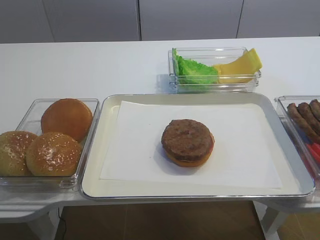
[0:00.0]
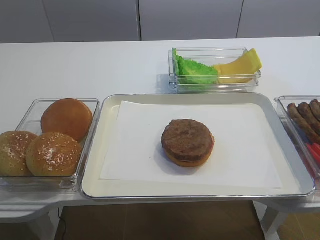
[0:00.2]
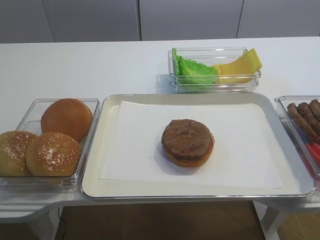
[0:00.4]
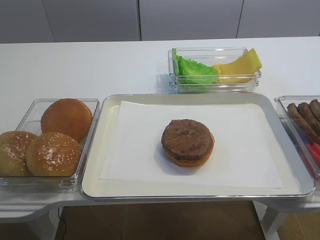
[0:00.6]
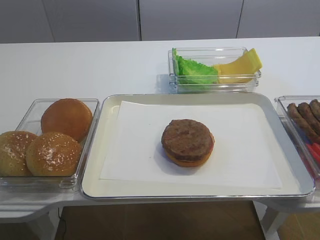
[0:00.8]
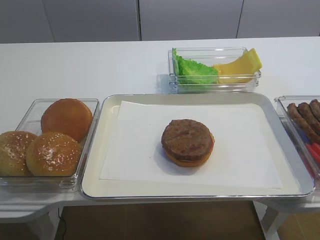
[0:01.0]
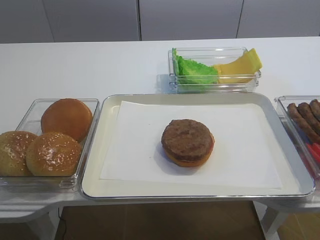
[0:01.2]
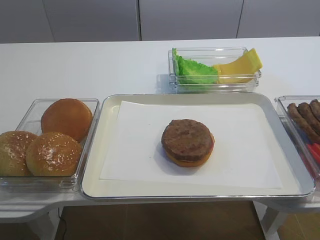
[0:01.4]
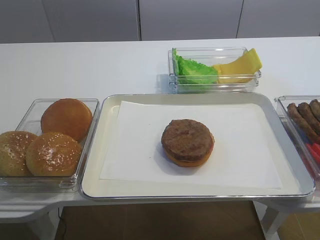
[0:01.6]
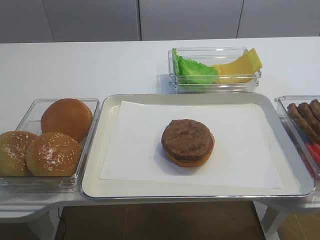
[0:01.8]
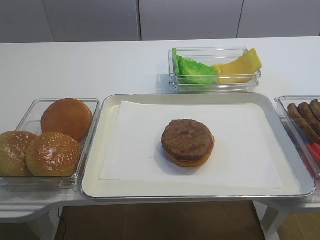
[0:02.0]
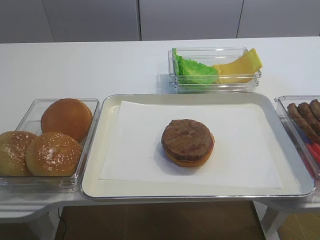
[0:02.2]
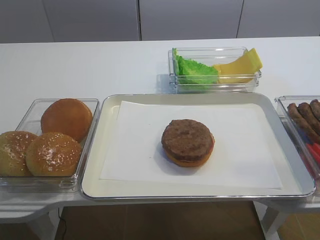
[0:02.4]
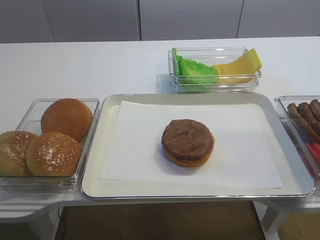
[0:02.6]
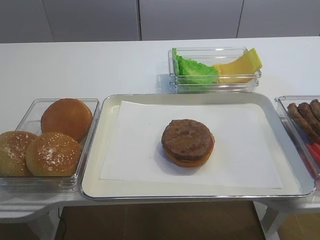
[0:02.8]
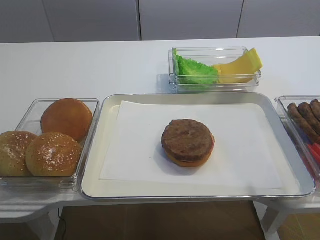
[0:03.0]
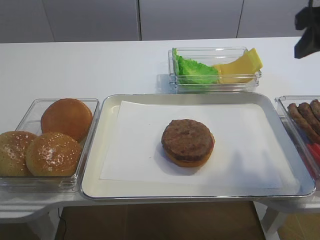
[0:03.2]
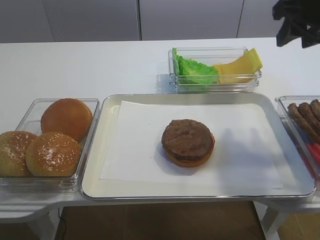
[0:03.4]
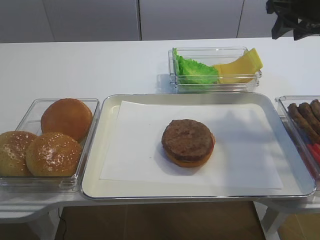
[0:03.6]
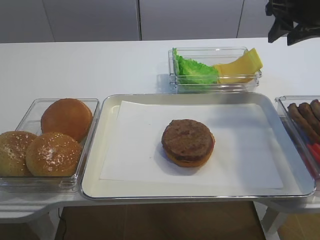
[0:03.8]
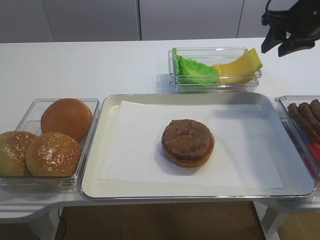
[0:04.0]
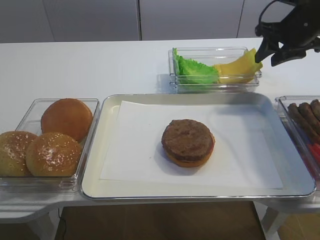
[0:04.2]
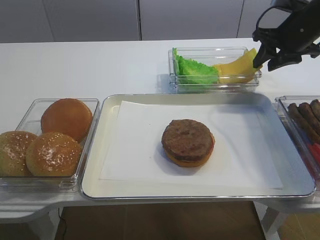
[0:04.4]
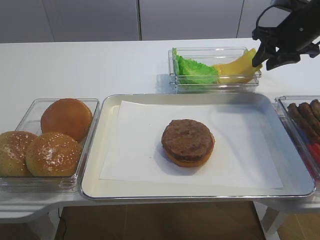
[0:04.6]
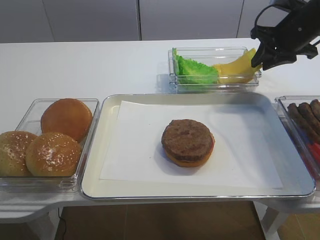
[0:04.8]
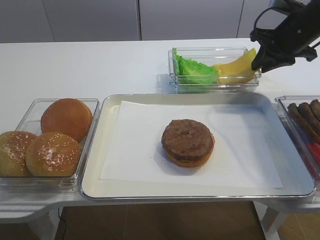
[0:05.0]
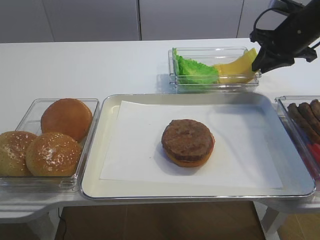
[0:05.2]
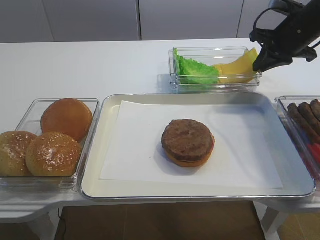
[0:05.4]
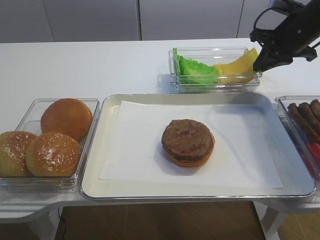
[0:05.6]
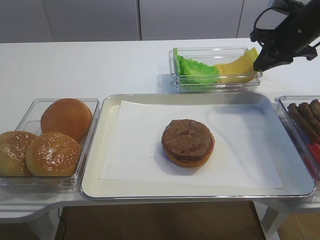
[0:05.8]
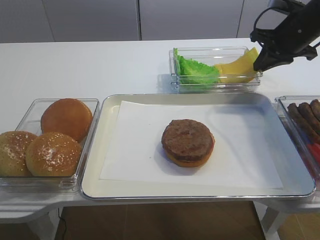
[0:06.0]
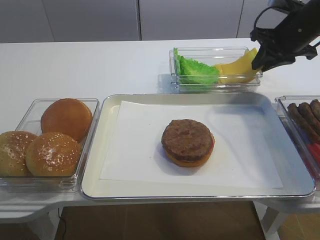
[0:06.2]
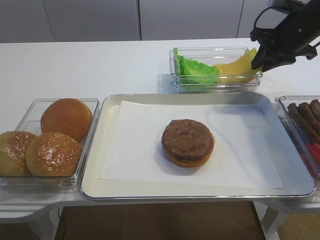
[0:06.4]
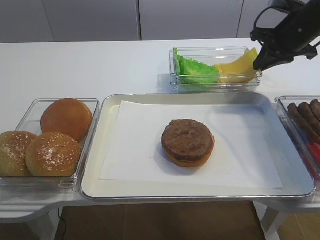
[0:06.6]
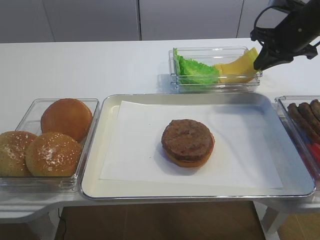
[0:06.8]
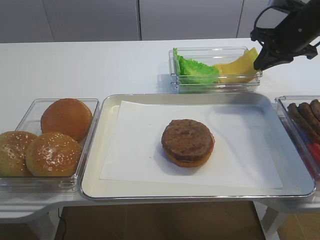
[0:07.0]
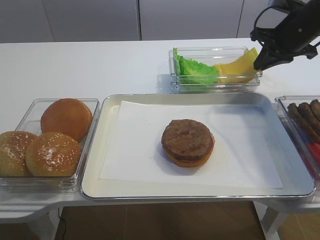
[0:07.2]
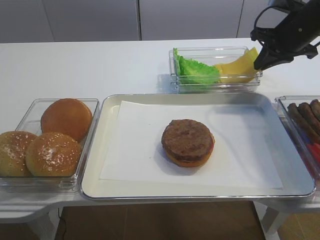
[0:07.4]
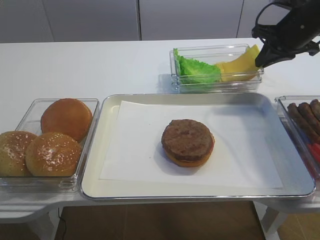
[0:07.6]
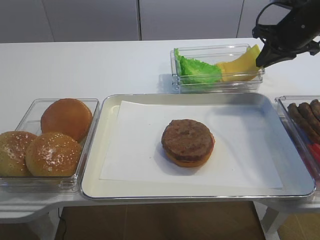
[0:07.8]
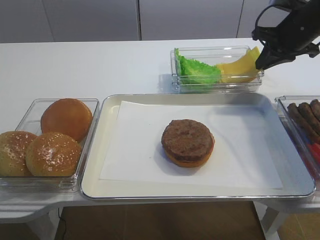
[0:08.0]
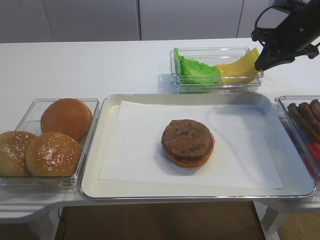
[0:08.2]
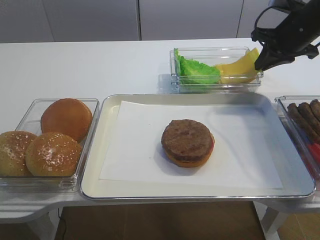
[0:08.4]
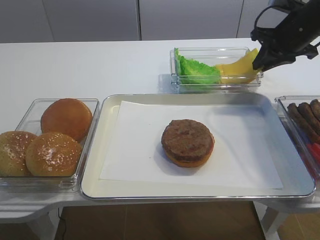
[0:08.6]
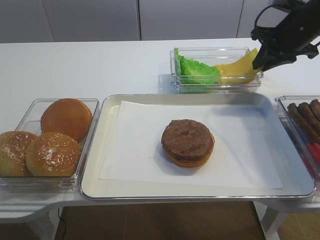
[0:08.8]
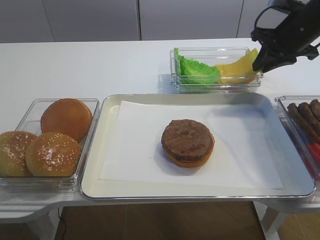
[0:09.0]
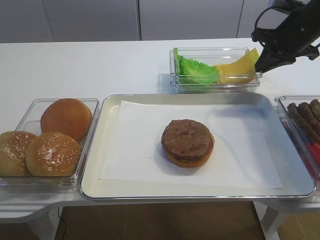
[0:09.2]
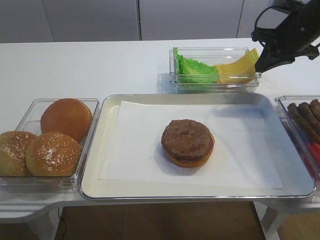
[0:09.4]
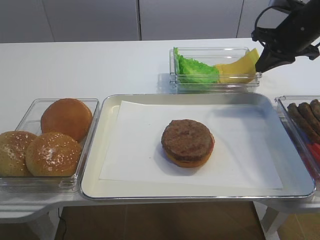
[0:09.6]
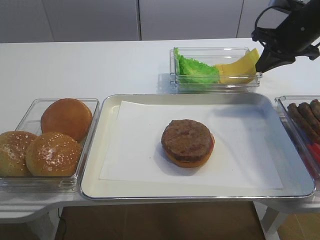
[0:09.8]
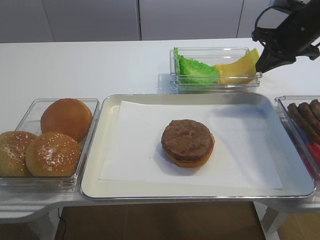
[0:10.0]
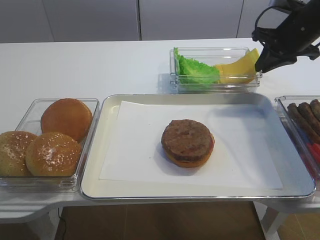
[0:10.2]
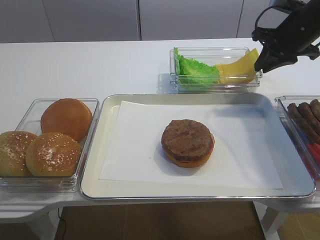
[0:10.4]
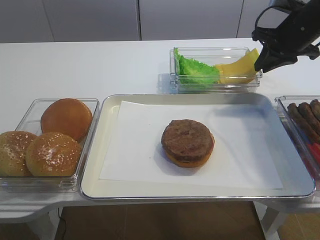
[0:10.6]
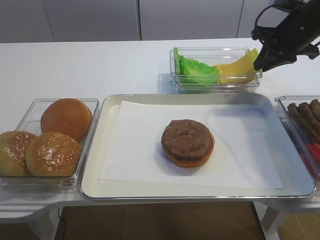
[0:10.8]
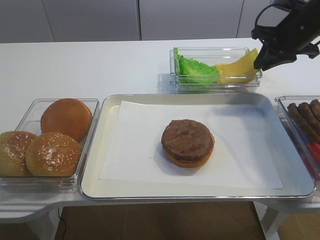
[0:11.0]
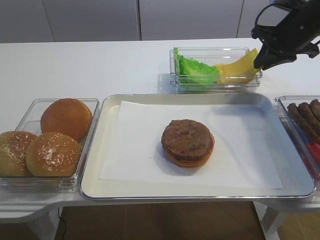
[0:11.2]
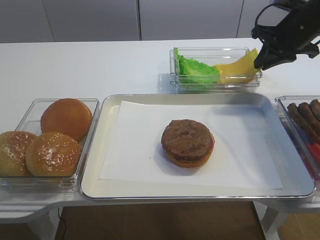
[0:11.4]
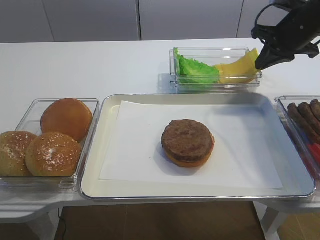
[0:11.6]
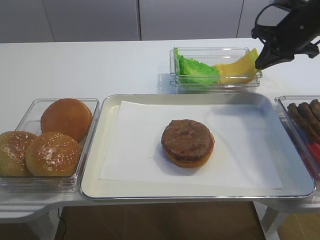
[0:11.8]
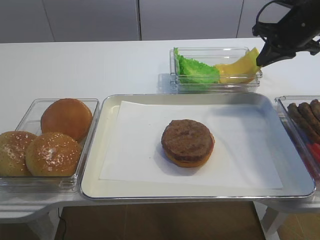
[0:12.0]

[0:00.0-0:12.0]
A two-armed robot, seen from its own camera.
0:01.6 to 0:03.0: The right gripper travels forward by some 20 cm.
0:03.0 to 0:04.4: The right gripper goes some 25 cm forward.
0:04.4 to 0:06.0: The right gripper closes up.
0:06.0 to 0:07.6: The right gripper opens and closes again.
0:07.6 to 0:12.0: The two grippers keep their place.

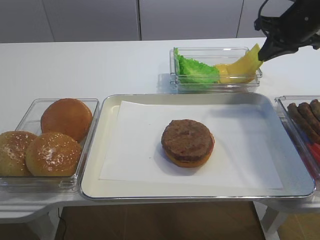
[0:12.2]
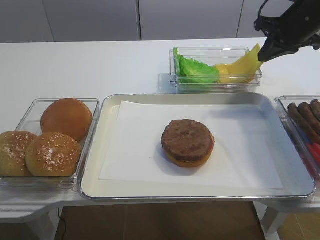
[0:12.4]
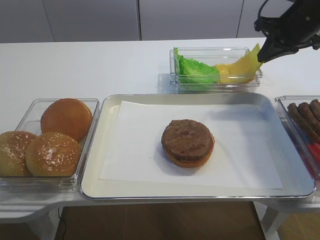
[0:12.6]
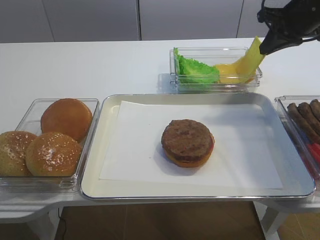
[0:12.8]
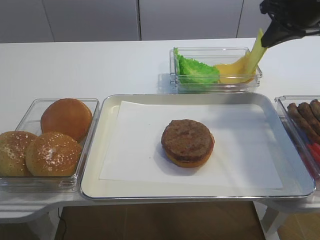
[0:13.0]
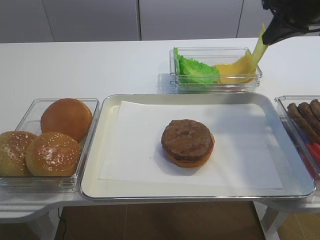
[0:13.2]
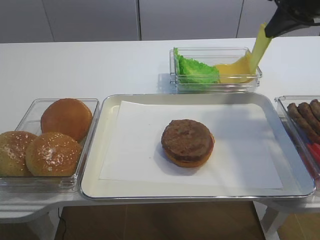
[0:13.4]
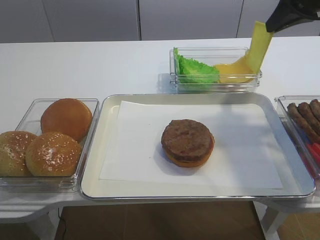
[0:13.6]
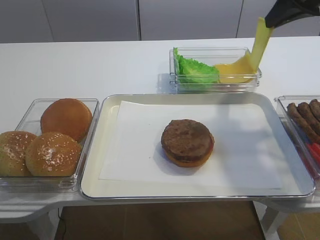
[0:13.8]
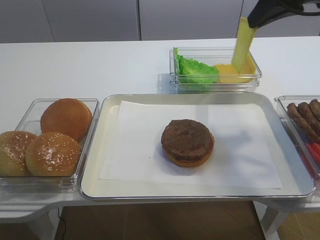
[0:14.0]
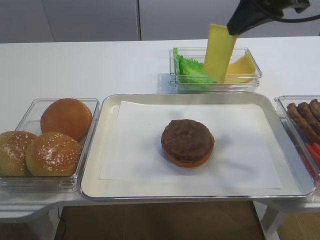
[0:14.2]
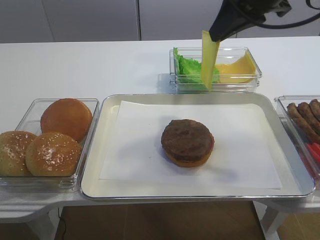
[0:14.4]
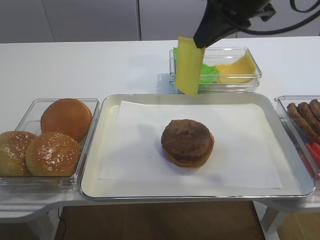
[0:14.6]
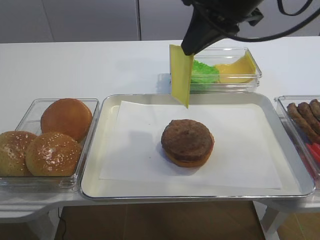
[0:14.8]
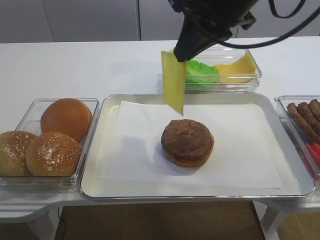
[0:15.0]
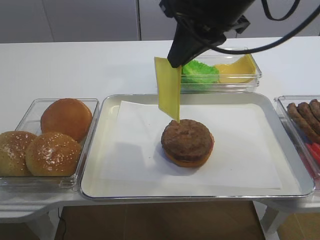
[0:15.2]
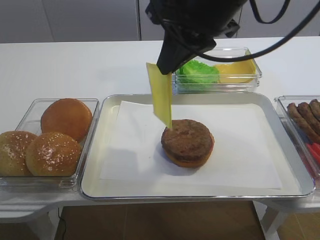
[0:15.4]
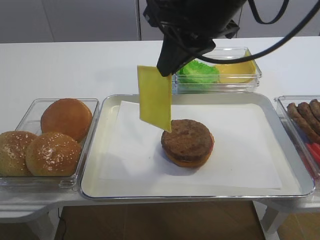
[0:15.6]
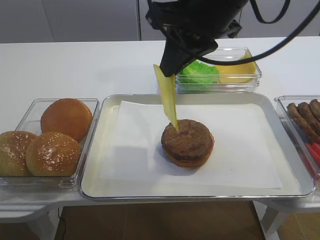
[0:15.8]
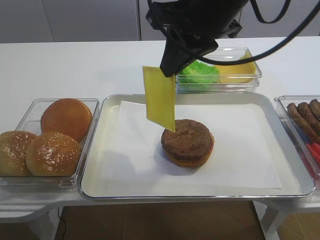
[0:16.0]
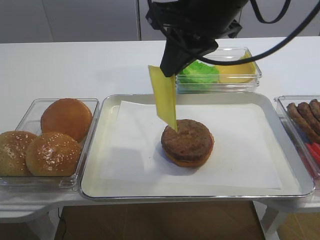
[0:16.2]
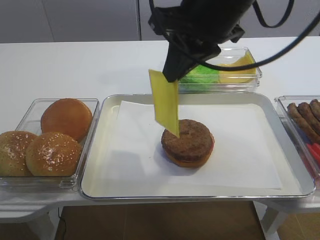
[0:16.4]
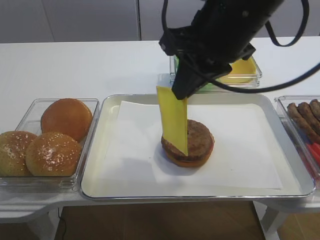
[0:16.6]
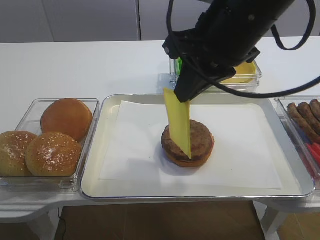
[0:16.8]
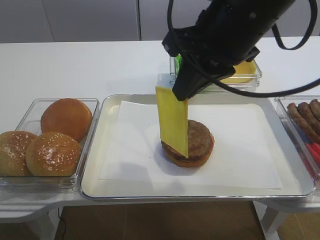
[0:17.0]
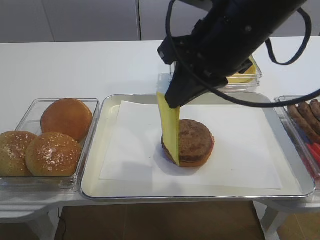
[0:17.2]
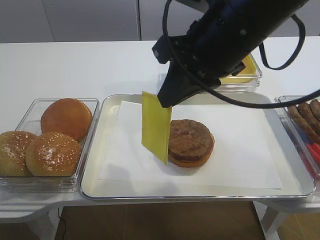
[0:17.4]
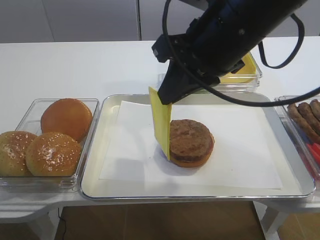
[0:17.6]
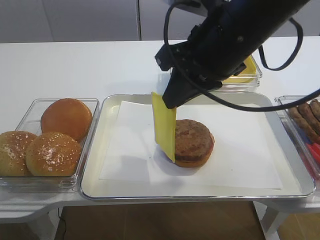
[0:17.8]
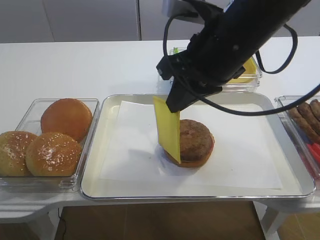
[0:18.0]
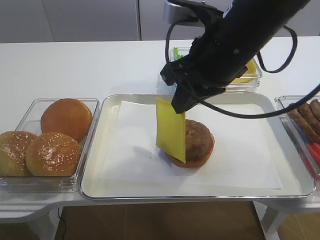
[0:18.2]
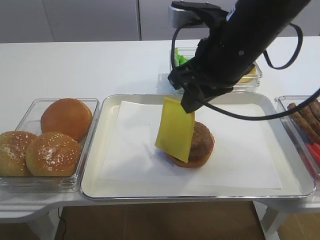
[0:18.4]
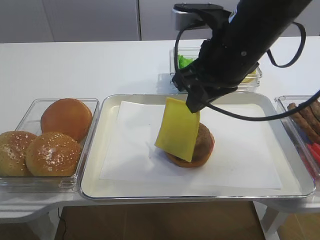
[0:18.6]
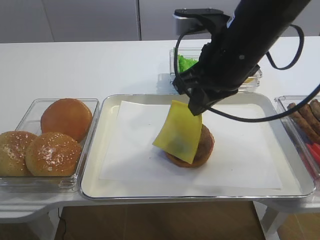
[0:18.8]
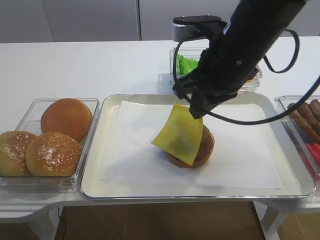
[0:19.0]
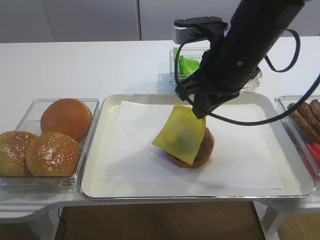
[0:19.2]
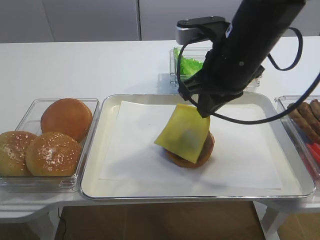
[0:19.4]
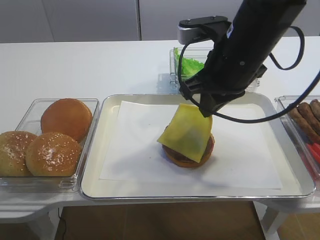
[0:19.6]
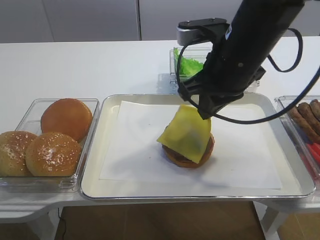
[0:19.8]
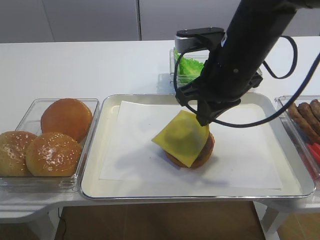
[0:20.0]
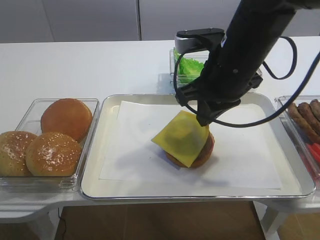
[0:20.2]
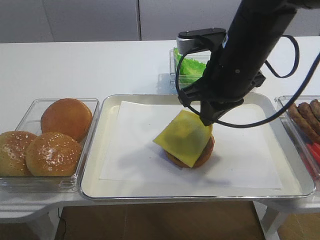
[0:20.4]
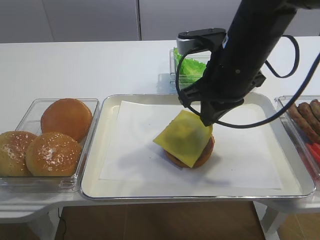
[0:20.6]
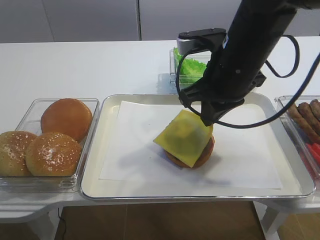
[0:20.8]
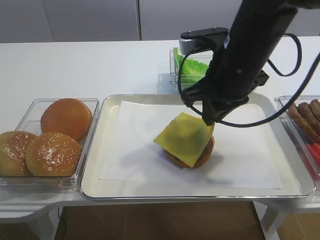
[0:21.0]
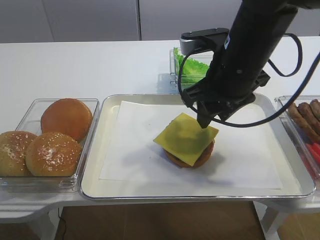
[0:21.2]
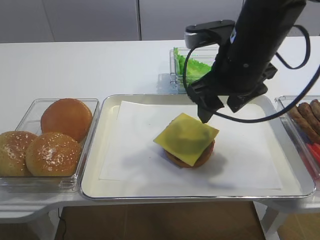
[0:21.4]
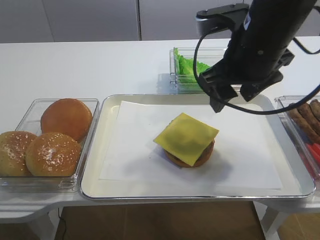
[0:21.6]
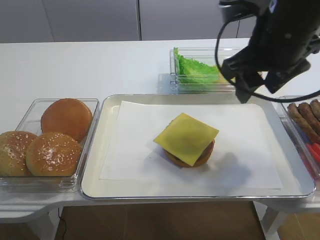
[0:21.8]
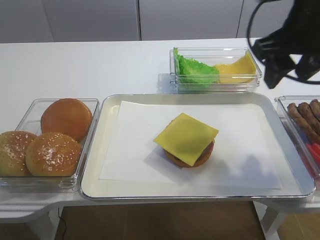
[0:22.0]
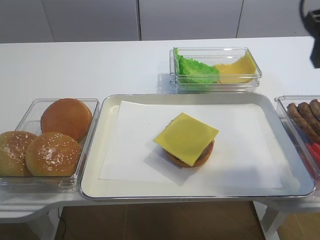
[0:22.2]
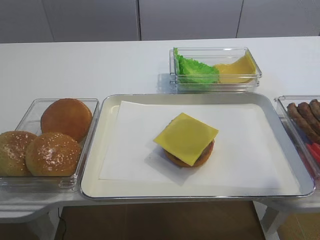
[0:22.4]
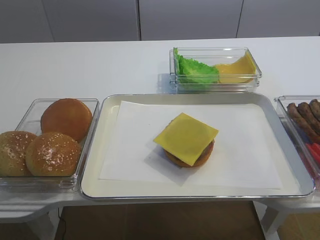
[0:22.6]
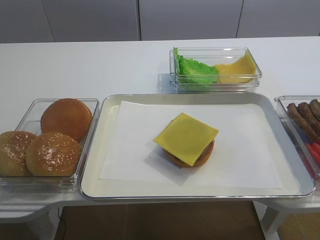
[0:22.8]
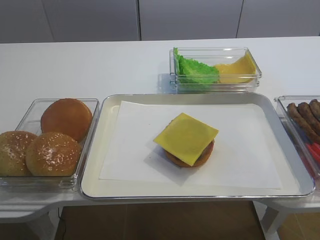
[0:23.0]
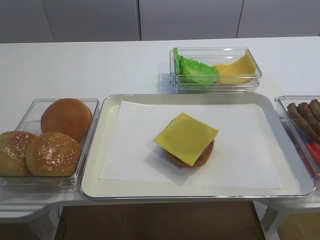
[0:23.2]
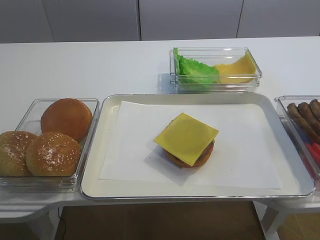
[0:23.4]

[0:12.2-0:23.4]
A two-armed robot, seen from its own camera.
Step, 0:14.0 to 0:21.4: Place the cheese slice on the cutlet with the right gripper.
0:12.2 to 0:13.8: The right gripper shifts approximately 10 cm upward and backward.
0:13.8 to 0:15.4: The right gripper heads to the left and backward, covering approximately 20 cm.
0:15.4 to 0:17.0: The grippers move only a little.
0:17.0 to 0:18.6: The grippers make only small movements.
0:18.6 to 0:20.2: The grippers make only small movements.
0:20.2 to 0:21.8: The right gripper shifts by about 5 cm, and opens.
0:21.8 to 0:23.4: The right gripper is displaced backward, to the right and upward by approximately 25 cm.
